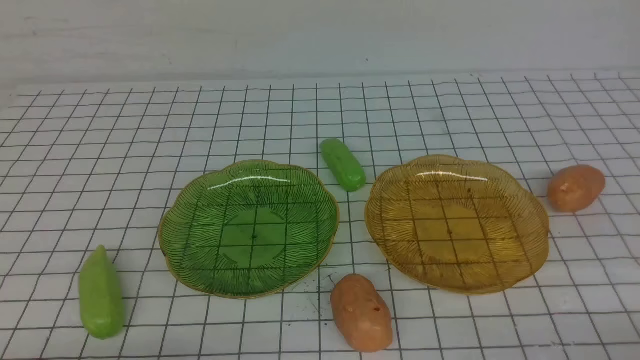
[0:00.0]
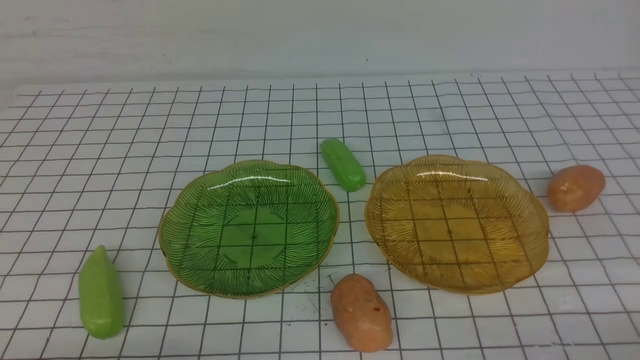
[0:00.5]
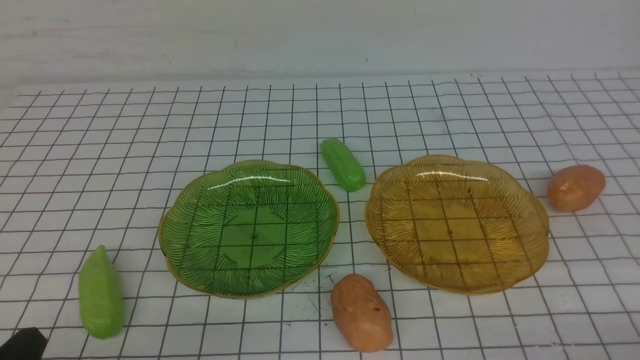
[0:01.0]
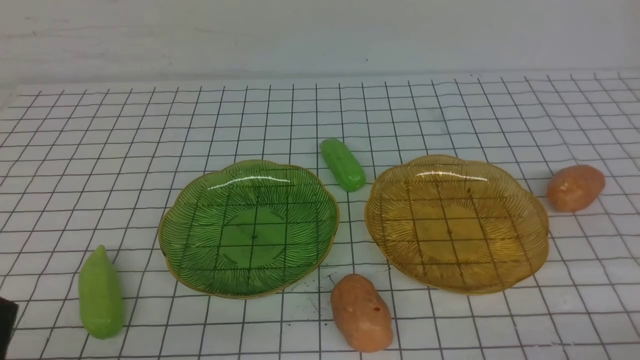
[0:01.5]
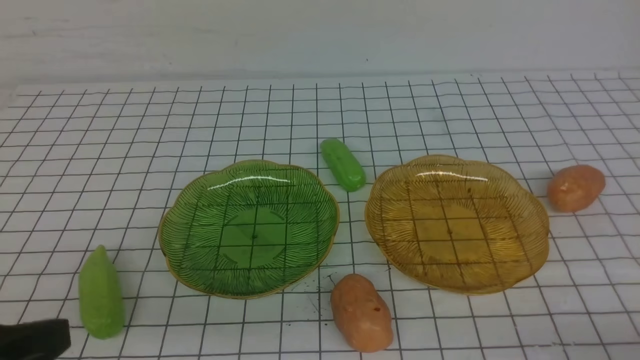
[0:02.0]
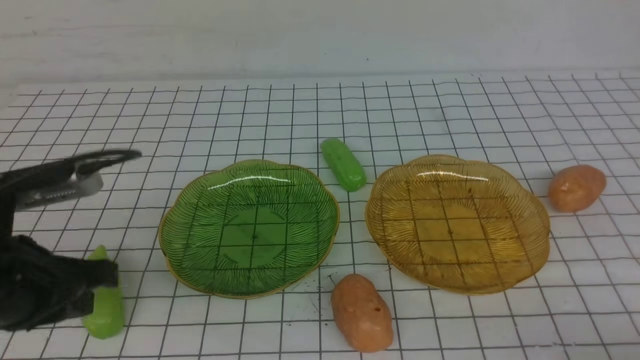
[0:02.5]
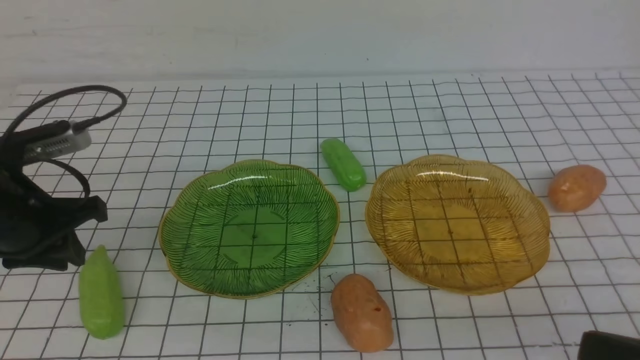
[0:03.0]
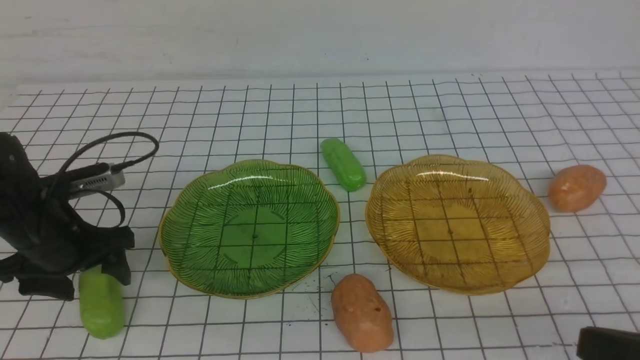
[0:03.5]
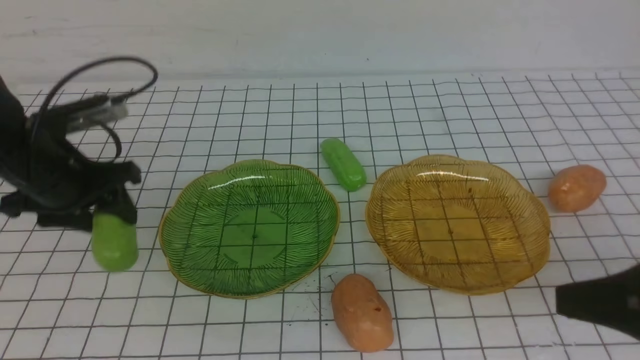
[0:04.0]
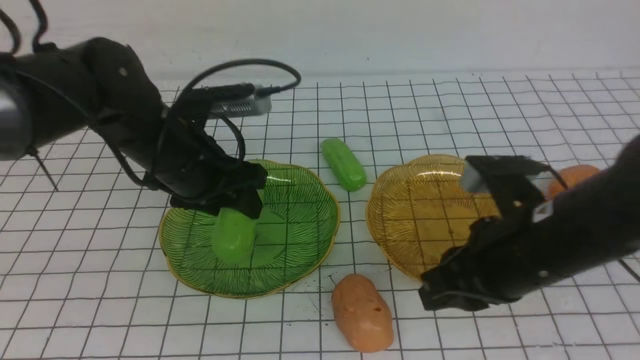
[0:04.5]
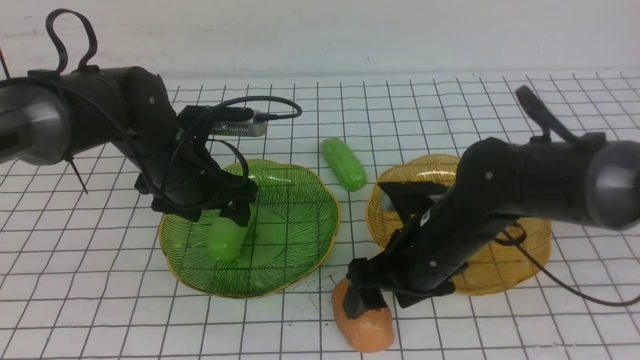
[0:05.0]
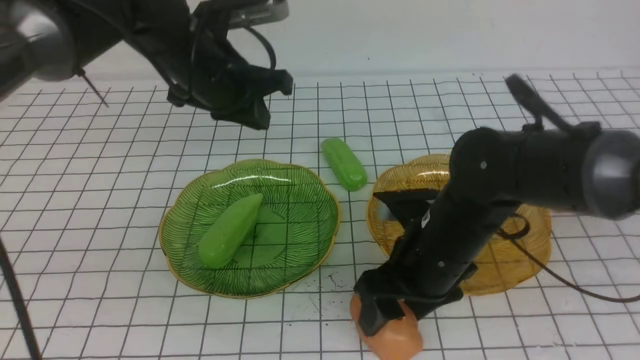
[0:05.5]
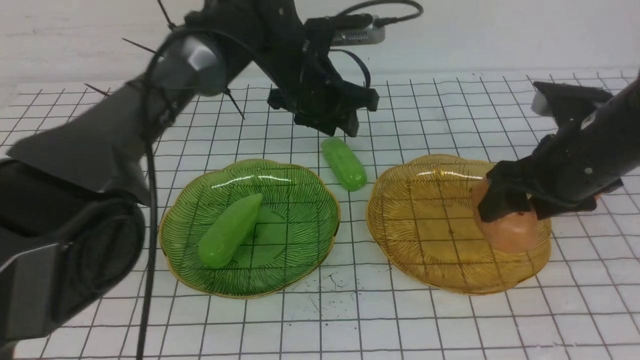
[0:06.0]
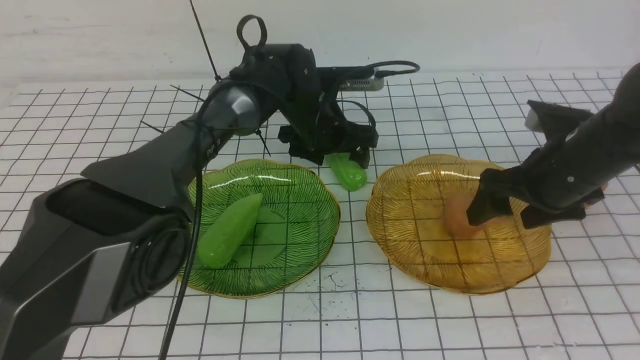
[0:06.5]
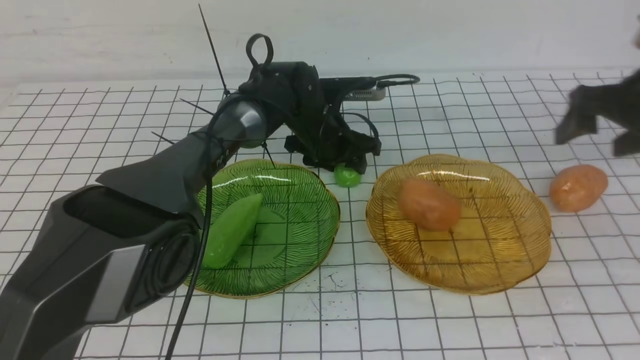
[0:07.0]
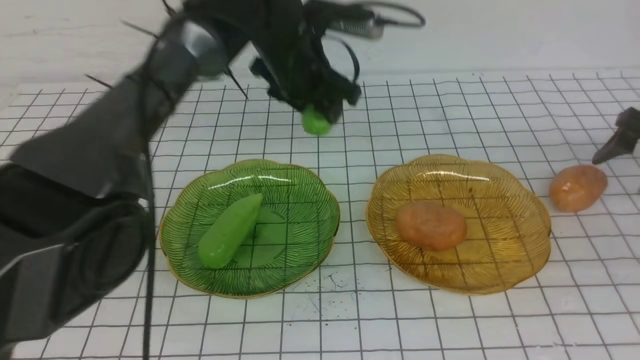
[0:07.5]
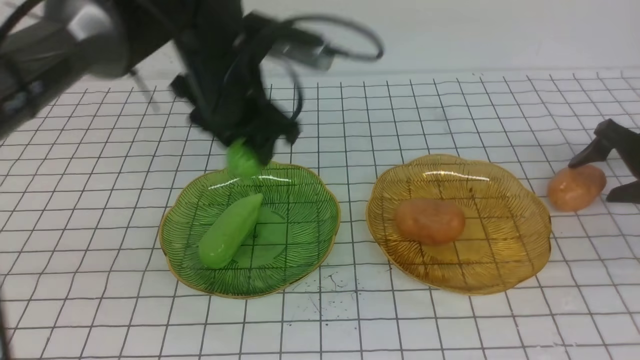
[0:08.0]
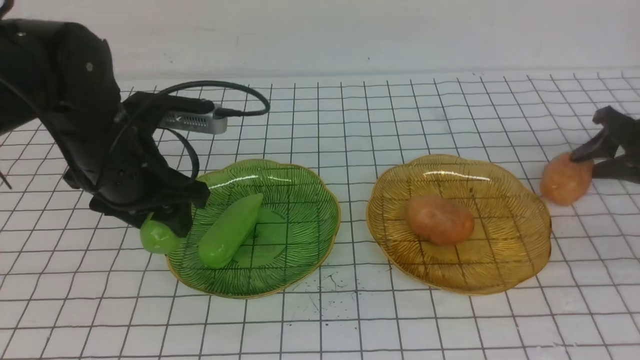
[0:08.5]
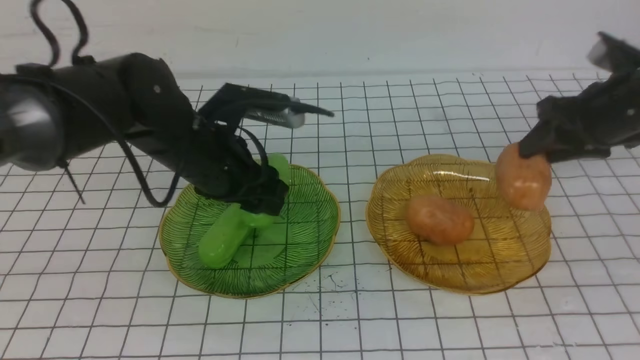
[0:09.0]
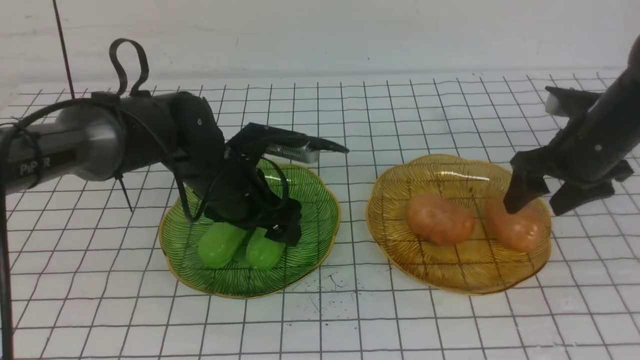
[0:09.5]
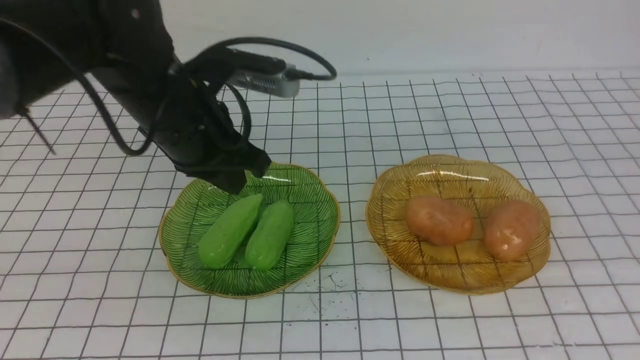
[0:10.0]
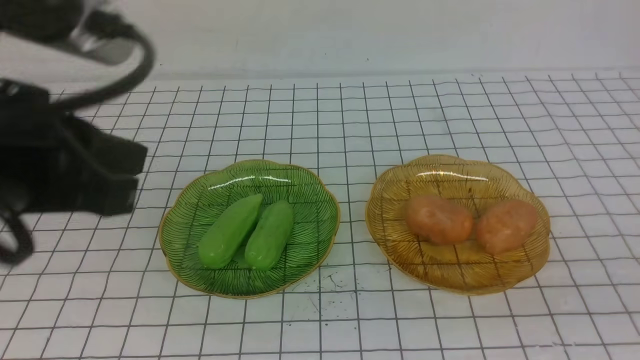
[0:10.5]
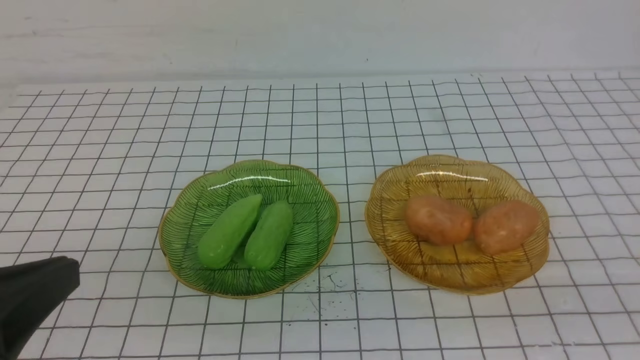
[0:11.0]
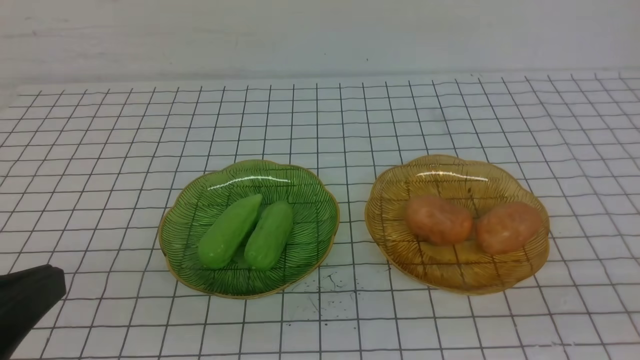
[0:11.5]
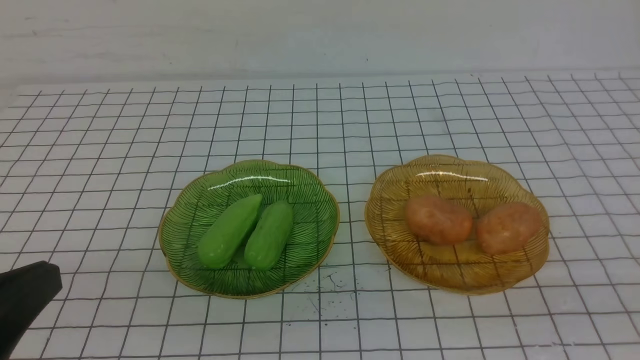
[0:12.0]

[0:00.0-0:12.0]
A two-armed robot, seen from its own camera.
Step, 0:00.0 to 0:05.0: use the left arm to grab a chayote and put it into the left plate.
Step, 0:05.5 to 0:09.0: Grab a potato with your right arm and put it on the right plate.
0:00.0 to 0:02.0: The left gripper heads upward, covering some 15 cm.
0:02.0 to 0:04.0: The right gripper heads upward, forward and to the left, covering some 15 cm, while the left gripper is displaced forward by roughly 25 cm, and opens up.
0:04.0 to 0:06.0: The right gripper heads forward, covering about 20 cm, and opens; the left gripper moves to the right and forward, about 25 cm, and closes, then opens again.
0:06.0 to 0:08.0: The right gripper heads to the right, forward and downward, covering roughly 25 cm. The left gripper shifts approximately 15 cm backward, to the left and upward, and opens and closes again.
0:08.0 to 0:10.0: The left gripper travels backward by roughly 5 cm, travels downward and back again, roughly 10 cm each way, and closes; the right gripper shifts some 40 cm upward, backward and to the left, and closes up.
0:10.0 to 0:12.0: The left gripper shifts about 30 cm backward and to the left. Meanwhile the right gripper heads backward and downward, covering some 20 cm.
